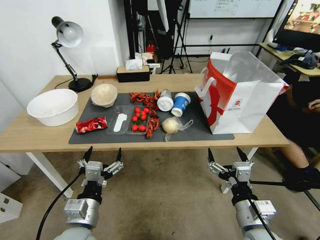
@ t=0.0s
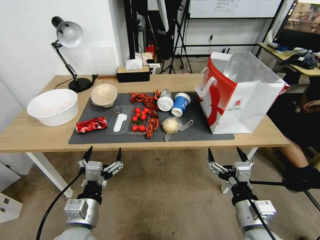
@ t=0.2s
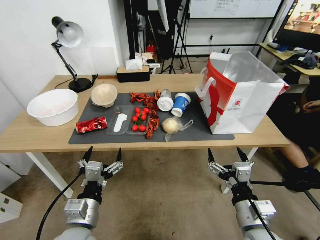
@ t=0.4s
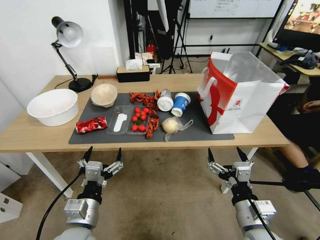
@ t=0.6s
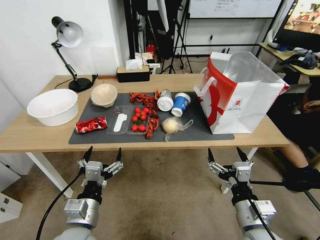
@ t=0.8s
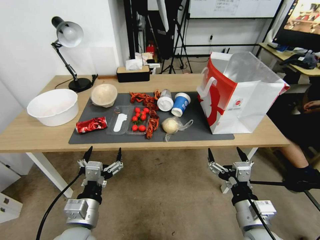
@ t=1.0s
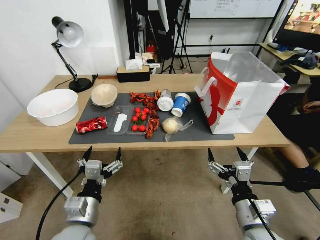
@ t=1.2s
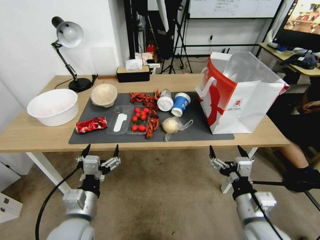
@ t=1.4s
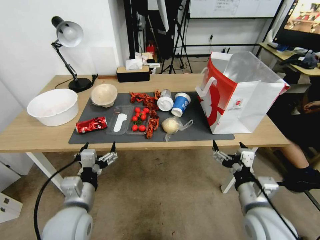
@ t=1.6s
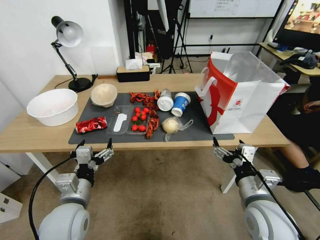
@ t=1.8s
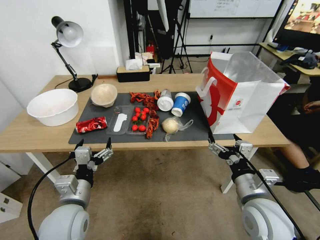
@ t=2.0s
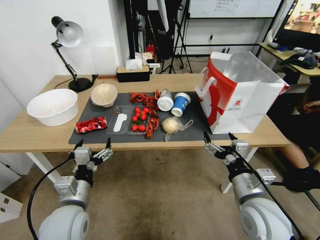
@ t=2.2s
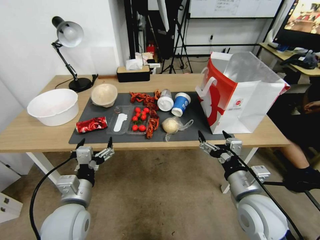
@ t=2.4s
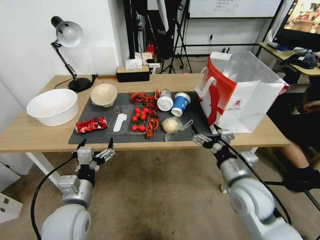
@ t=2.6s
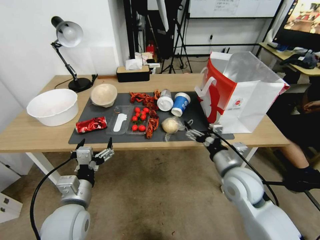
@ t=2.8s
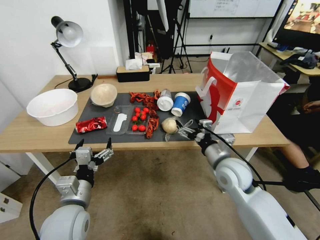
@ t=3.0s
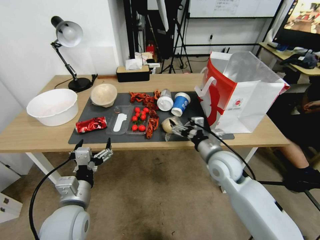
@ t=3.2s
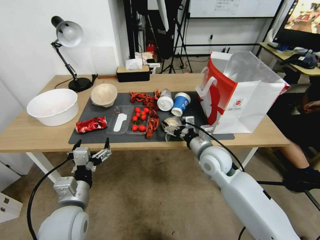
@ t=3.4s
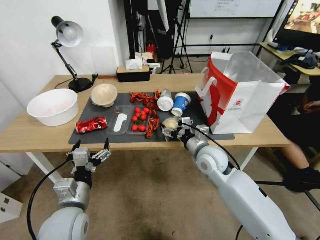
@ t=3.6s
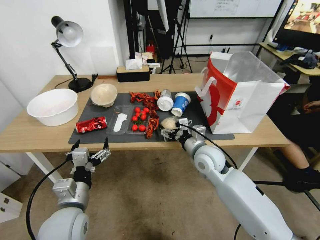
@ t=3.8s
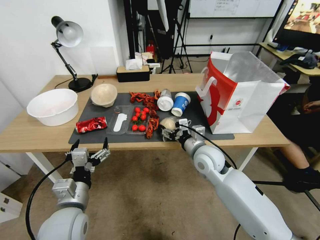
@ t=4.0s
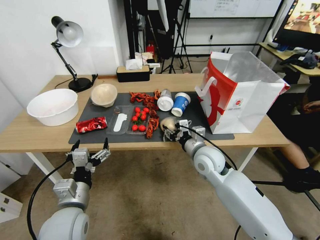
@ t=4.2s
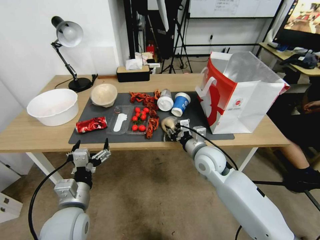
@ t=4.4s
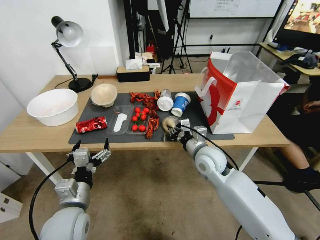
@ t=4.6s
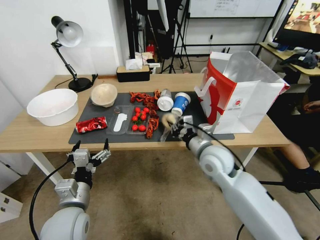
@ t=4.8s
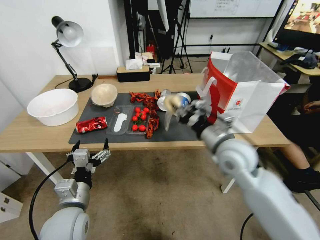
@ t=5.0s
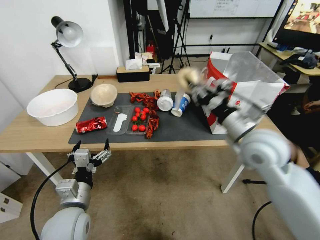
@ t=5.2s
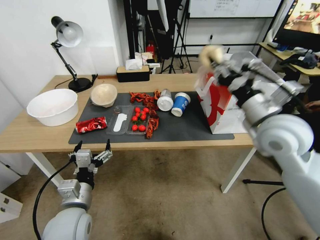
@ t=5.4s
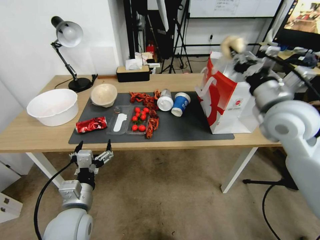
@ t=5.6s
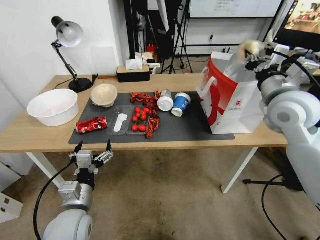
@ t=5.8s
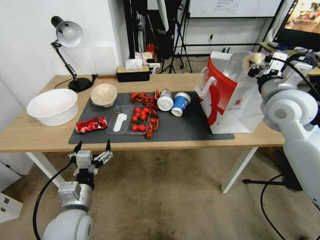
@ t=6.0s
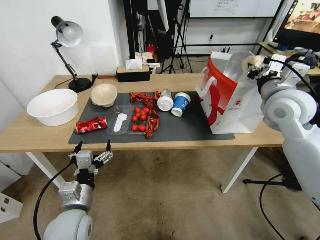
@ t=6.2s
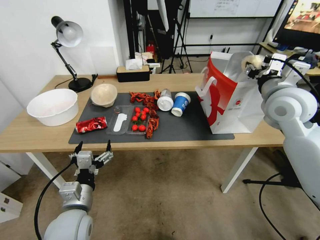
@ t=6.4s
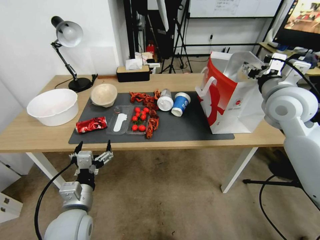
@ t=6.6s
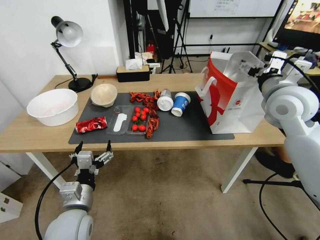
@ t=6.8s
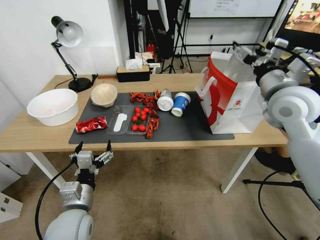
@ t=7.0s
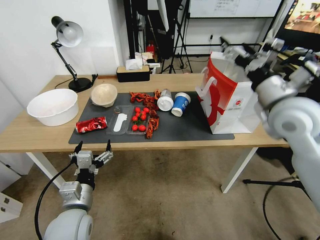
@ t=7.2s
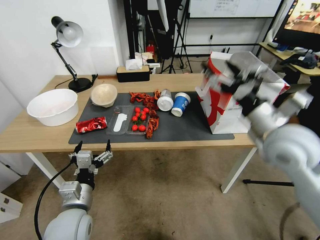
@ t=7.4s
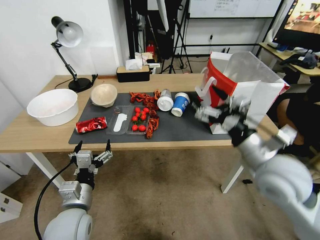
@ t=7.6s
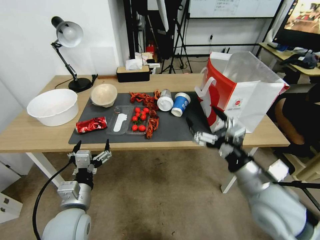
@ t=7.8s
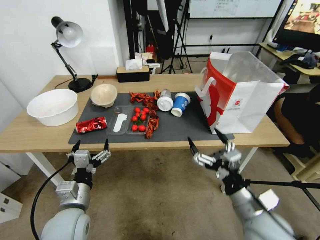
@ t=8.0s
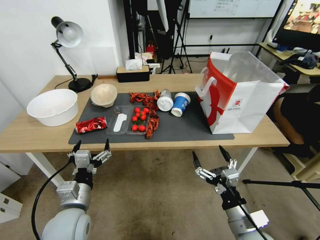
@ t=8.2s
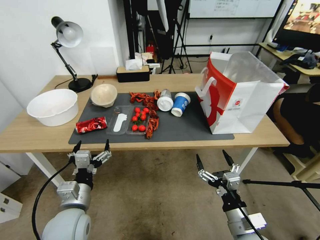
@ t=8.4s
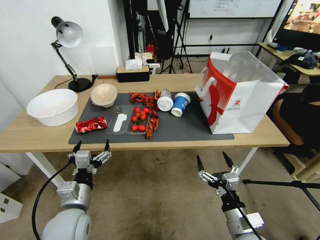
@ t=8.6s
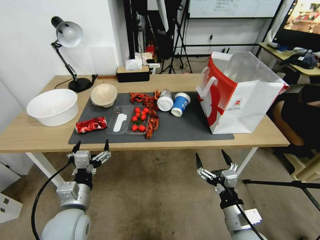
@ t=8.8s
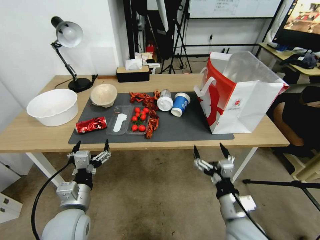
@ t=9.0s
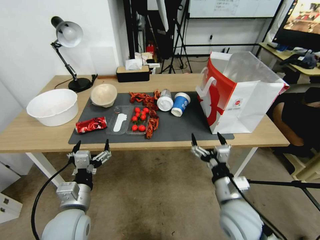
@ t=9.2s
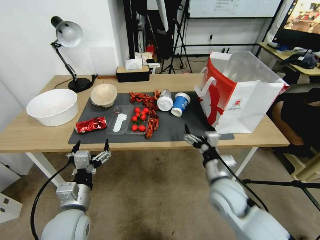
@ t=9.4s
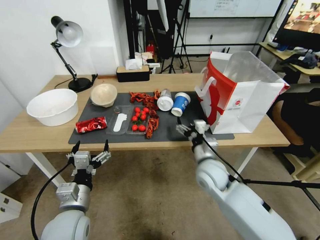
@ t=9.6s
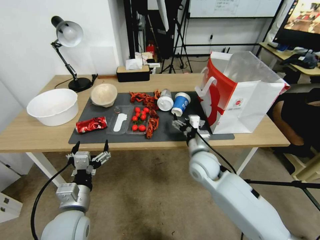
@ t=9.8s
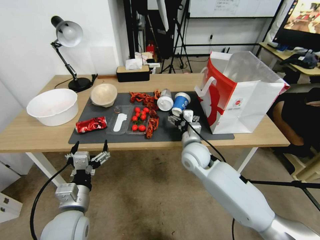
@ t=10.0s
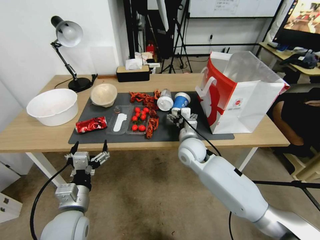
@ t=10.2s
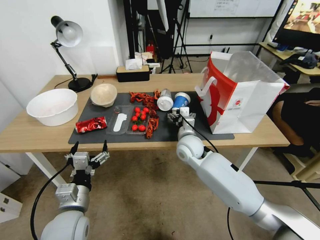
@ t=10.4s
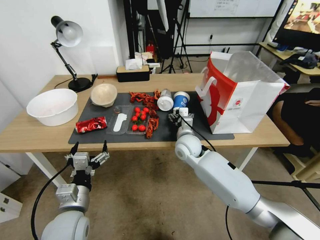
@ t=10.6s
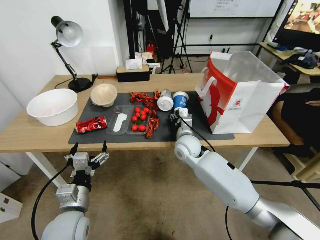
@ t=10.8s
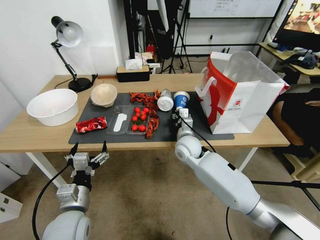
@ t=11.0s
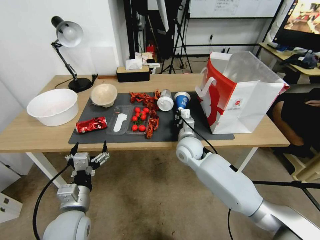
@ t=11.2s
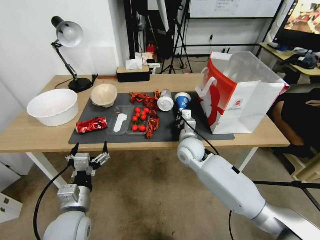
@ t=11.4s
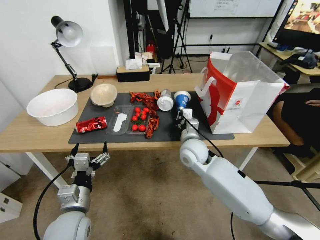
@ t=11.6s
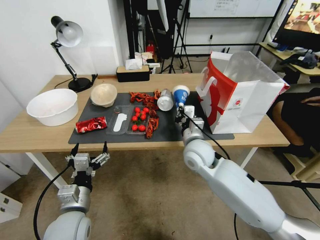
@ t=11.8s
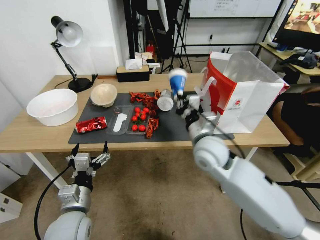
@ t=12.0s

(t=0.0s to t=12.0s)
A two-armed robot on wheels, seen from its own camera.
t=1.6s - t=3.0s: The right gripper goes about 15 cm forward.
t=3.0s - t=4.4s: The right gripper moves to the left, about 5 cm, and closes up.
t=4.4s - t=6.0s: The right gripper heads upward and to the right, covering approximately 25 cm.
t=6.0s - t=7.6s: The right gripper travels backward and downward by approximately 15 cm, and opens its fingers.
t=7.6s - t=9.0s: The right gripper moves downward and backward, about 20 cm.
t=9.0s - t=10.4s: The right gripper heads forward and to the left, covering approximately 30 cm.
t=10.4s - t=12.0s: The right gripper goes roughly 10 cm upward and backward, and closes up.

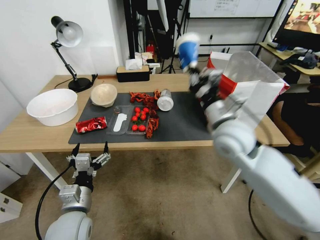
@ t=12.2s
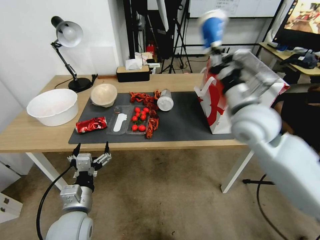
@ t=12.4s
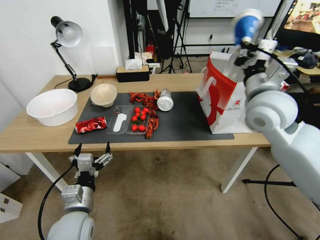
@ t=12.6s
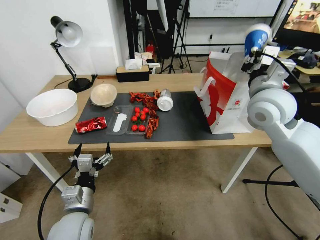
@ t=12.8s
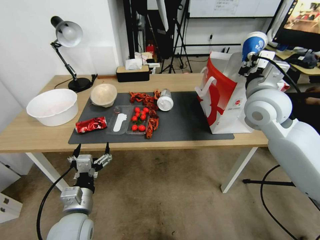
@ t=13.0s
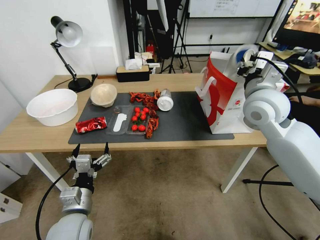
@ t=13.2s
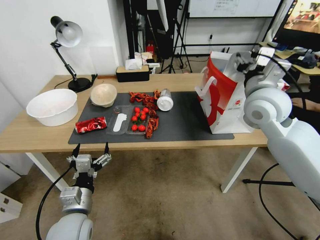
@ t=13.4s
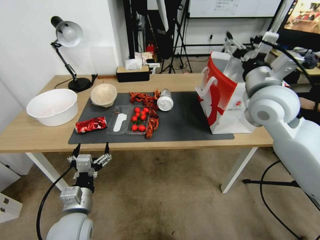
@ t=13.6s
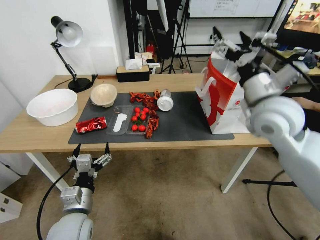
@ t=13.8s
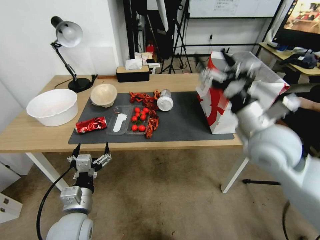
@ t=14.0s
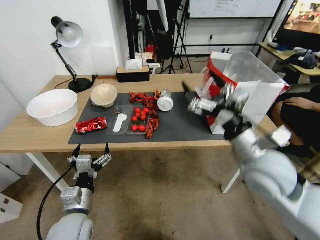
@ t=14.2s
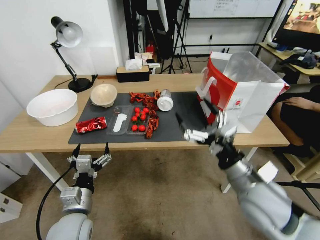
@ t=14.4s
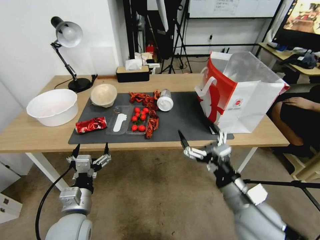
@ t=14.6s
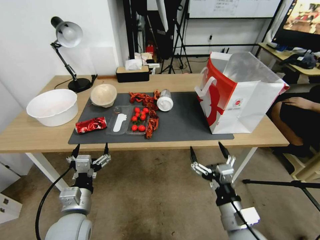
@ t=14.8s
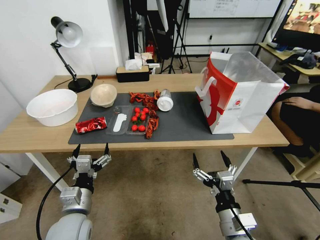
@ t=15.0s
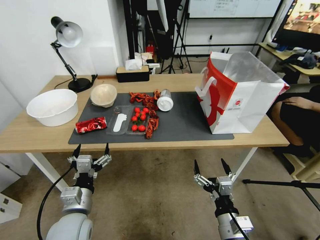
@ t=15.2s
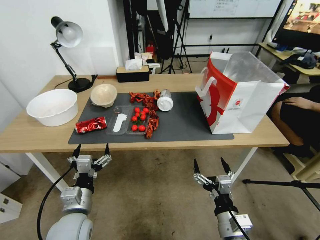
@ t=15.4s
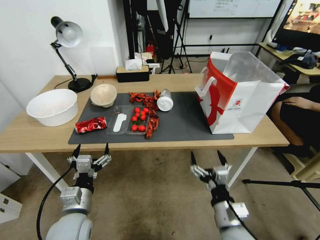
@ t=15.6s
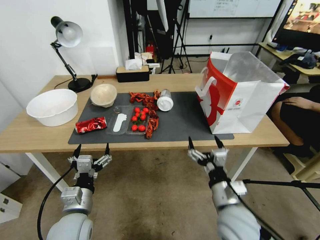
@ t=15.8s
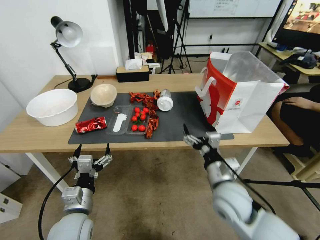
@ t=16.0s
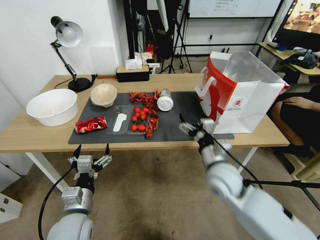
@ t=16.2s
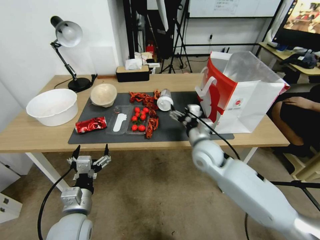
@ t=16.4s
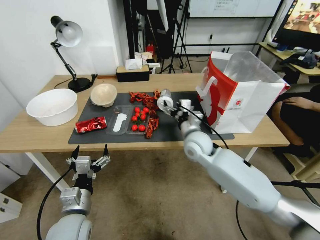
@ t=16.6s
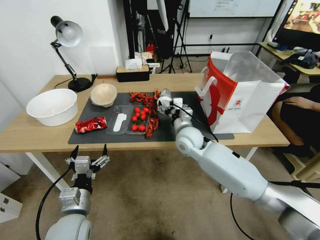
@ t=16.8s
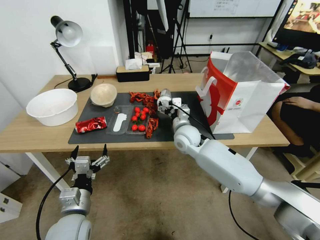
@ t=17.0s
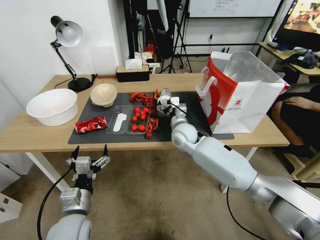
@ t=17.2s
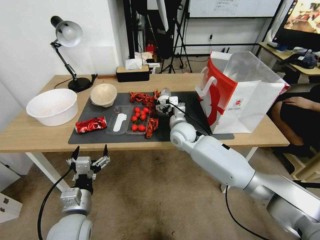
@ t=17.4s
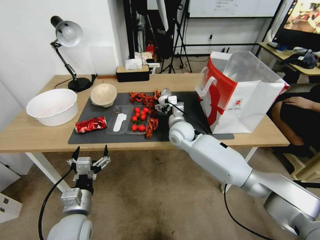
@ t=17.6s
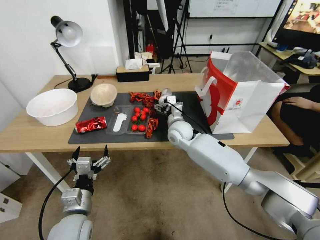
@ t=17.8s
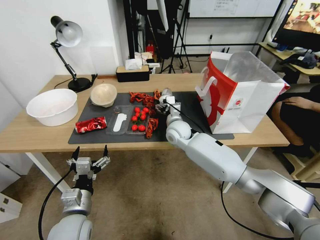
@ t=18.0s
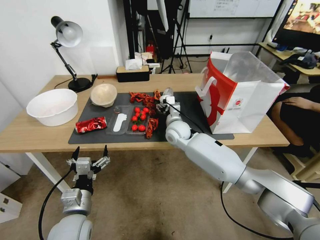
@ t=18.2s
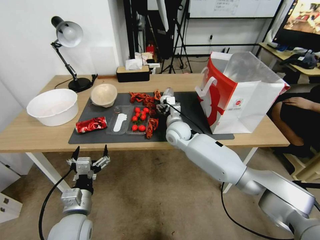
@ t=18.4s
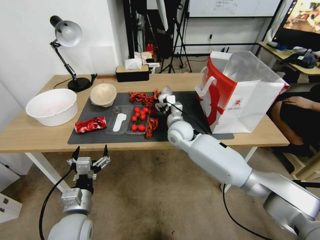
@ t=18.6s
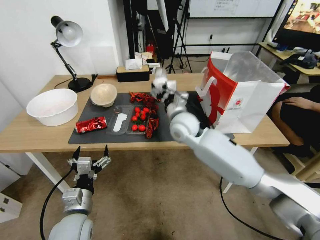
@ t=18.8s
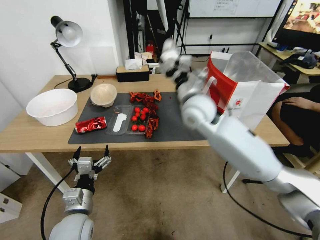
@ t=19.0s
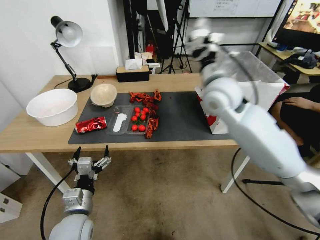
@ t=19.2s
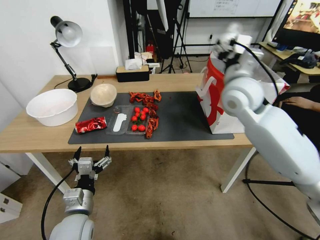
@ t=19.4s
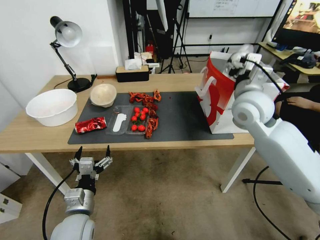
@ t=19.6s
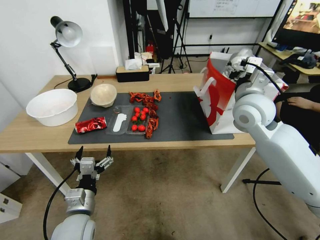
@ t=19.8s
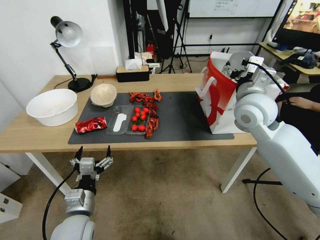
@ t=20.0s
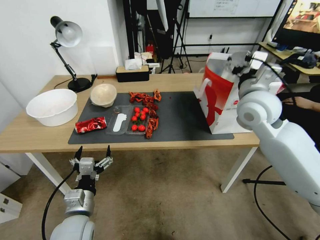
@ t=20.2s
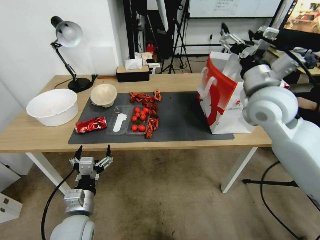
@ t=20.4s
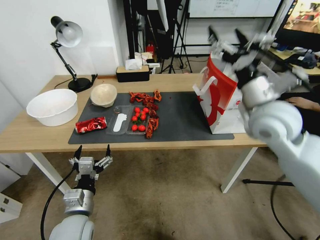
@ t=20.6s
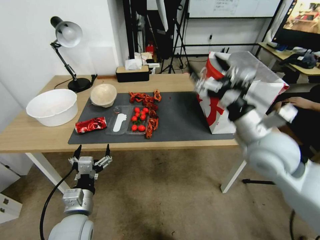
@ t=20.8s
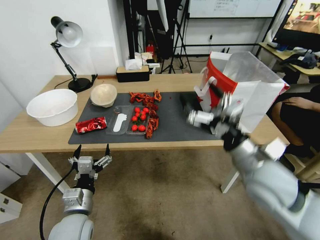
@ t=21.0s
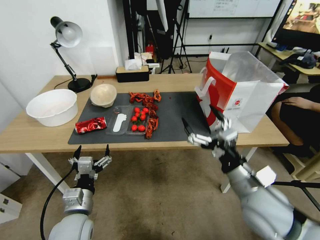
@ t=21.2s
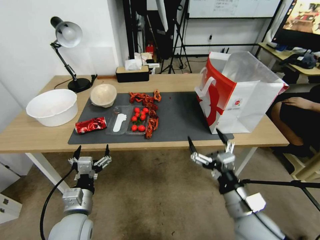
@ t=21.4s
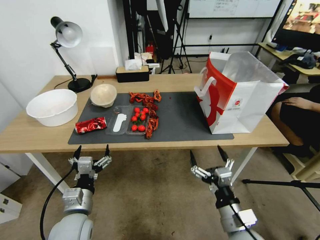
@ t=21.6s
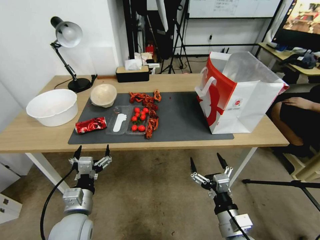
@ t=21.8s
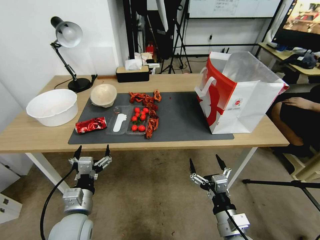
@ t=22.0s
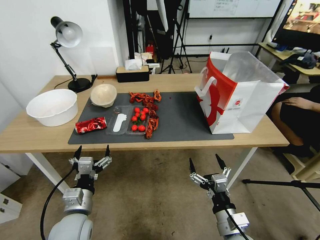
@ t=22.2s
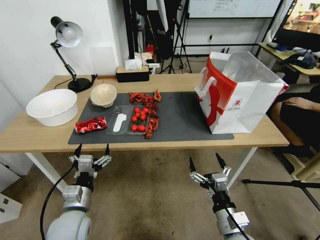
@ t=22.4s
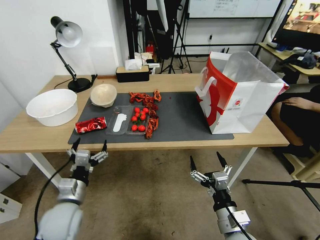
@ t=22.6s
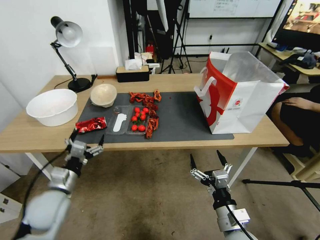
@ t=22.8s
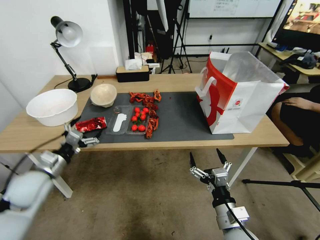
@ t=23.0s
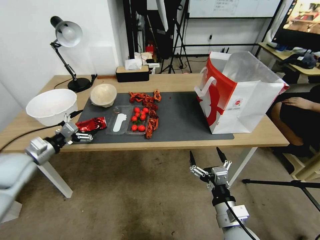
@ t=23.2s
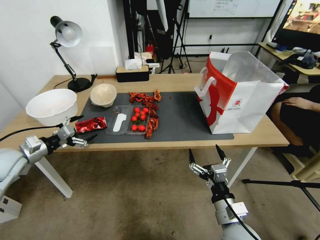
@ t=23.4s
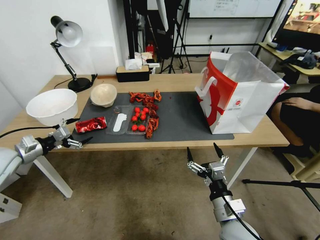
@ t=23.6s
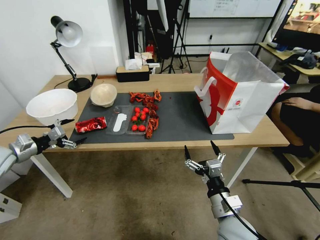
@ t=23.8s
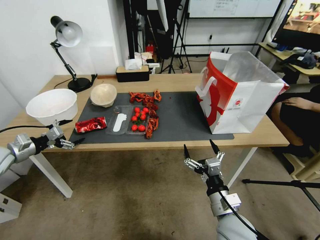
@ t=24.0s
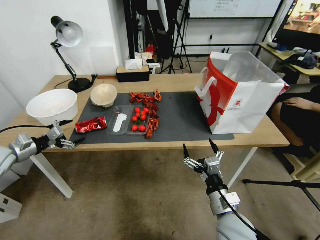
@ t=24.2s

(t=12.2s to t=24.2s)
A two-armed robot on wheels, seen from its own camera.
t=12.2s - t=13.8s: The right gripper travels upward and to the right by approximately 20 cm, and opens.
t=13.8s - t=15.2s: The right gripper moves downward and backward, about 35 cm.
t=15.2s - t=16.6s: The right gripper heads forward, covering about 25 cm.
t=16.6s - t=18.2s: The right gripper shifts about 10 cm forward and to the left.
t=18.2s - t=19.8s: The right gripper travels upward, to the right and backward by about 25 cm.
t=19.8s - t=21.2s: The right gripper is displaced backward and downward by roughly 25 cm.
t=21.2s - t=22.6s: The right gripper heads downward and backward, covering about 15 cm.
t=22.6s - t=24.2s: The left gripper moves to the left and forward, about 30 cm.
